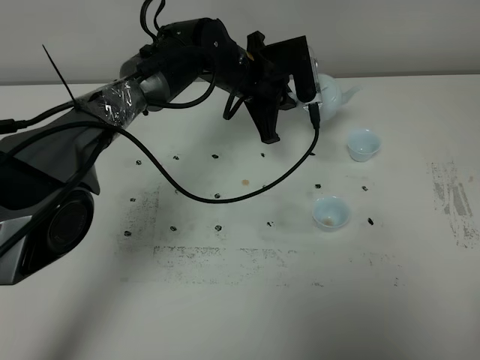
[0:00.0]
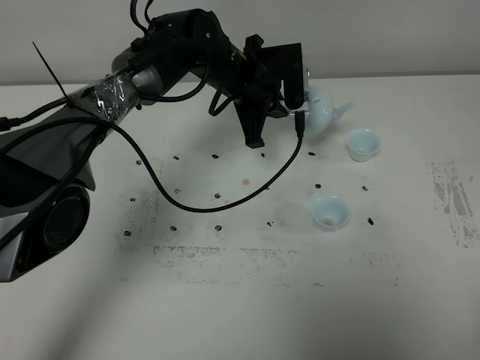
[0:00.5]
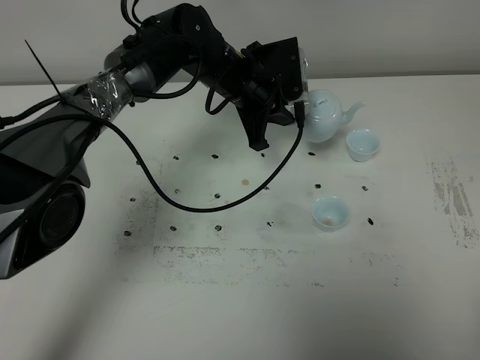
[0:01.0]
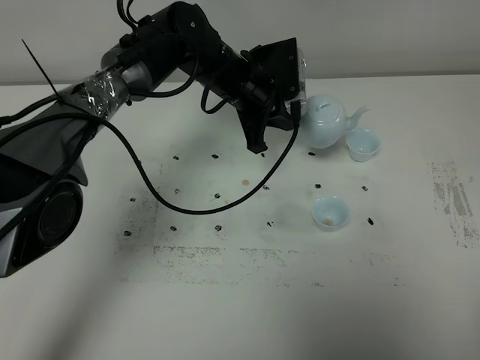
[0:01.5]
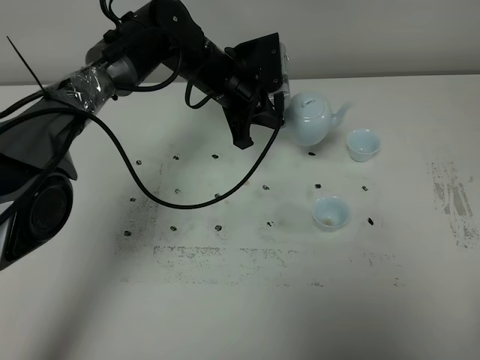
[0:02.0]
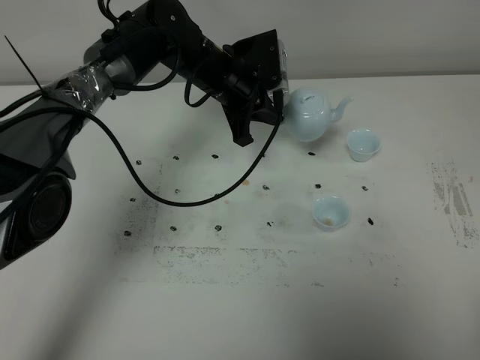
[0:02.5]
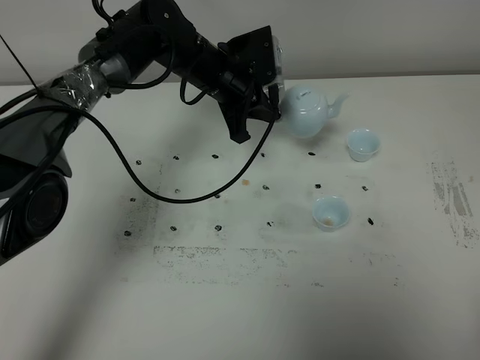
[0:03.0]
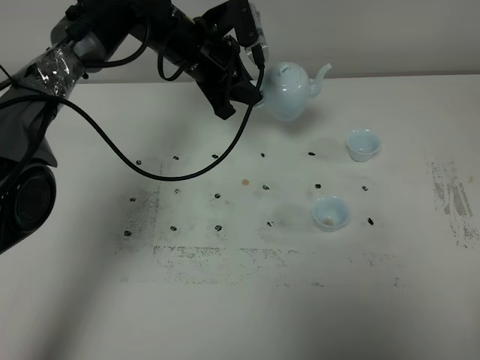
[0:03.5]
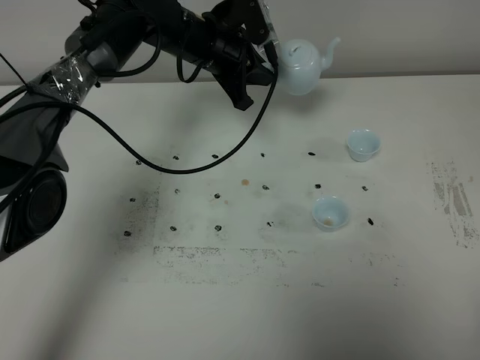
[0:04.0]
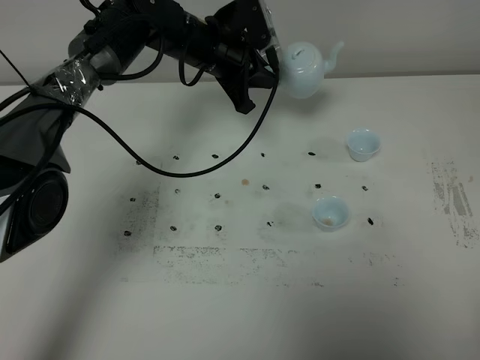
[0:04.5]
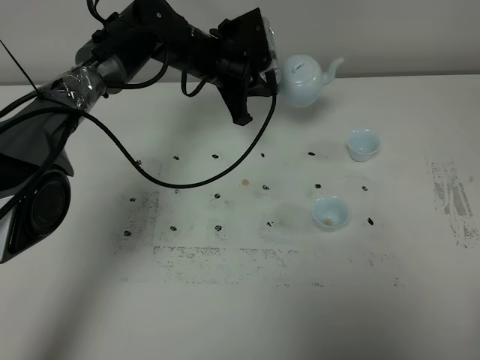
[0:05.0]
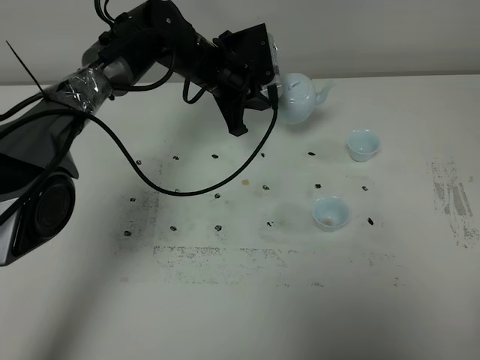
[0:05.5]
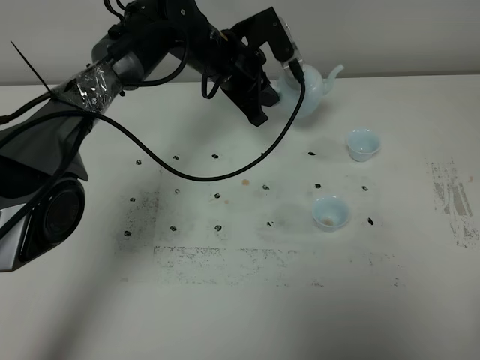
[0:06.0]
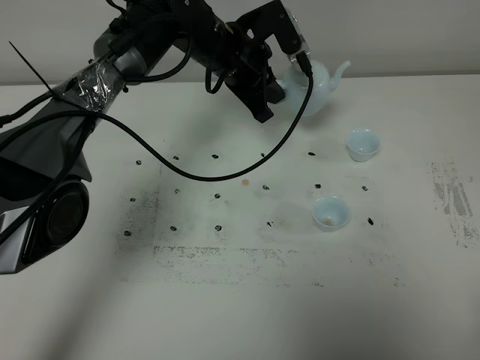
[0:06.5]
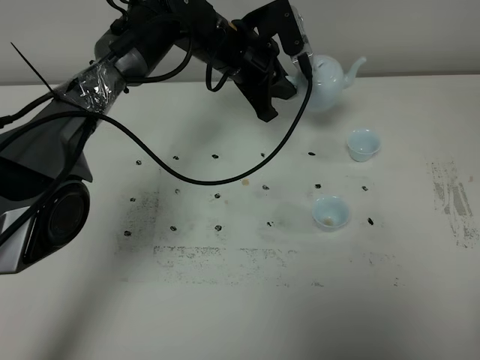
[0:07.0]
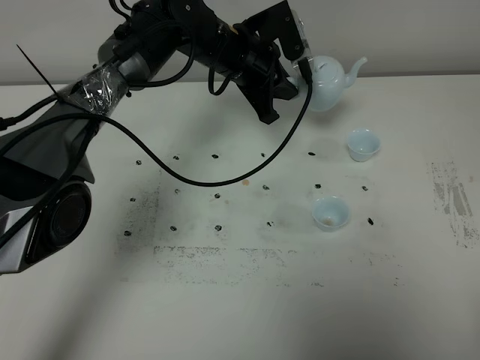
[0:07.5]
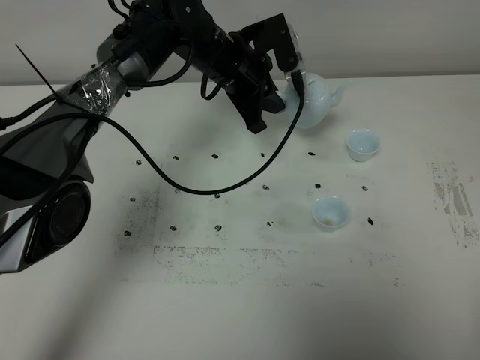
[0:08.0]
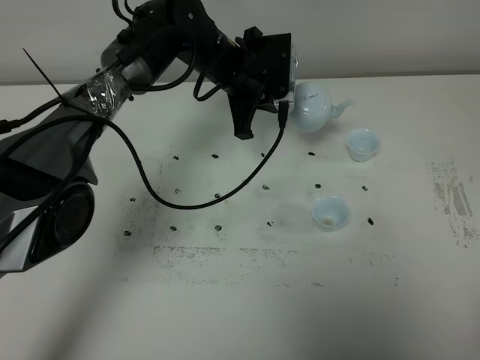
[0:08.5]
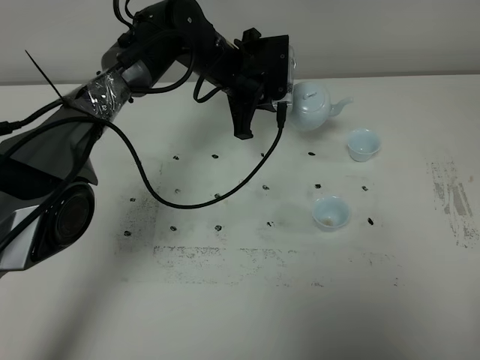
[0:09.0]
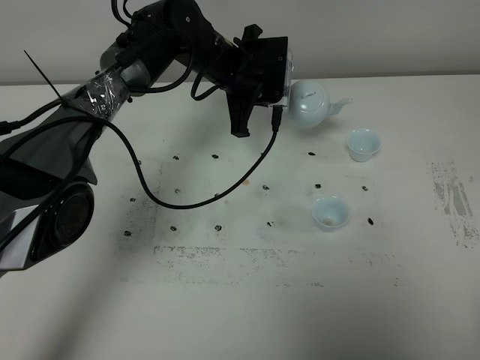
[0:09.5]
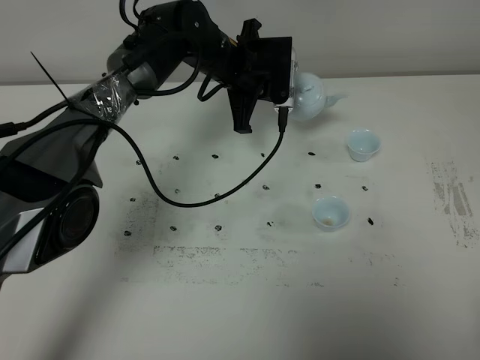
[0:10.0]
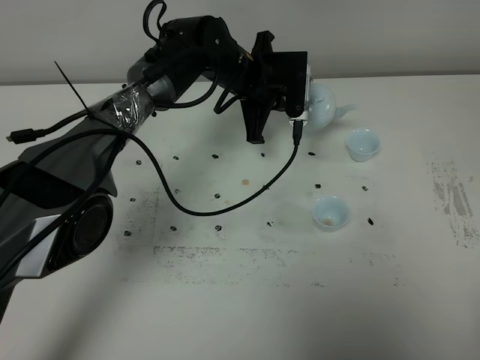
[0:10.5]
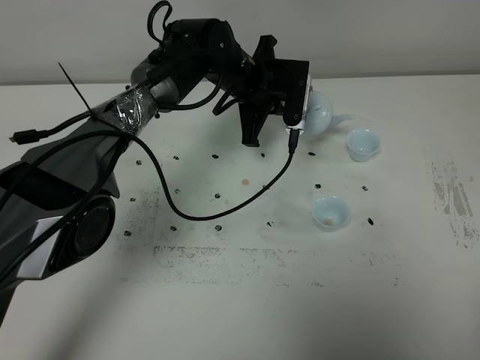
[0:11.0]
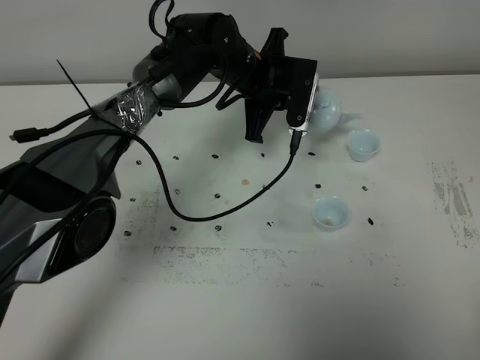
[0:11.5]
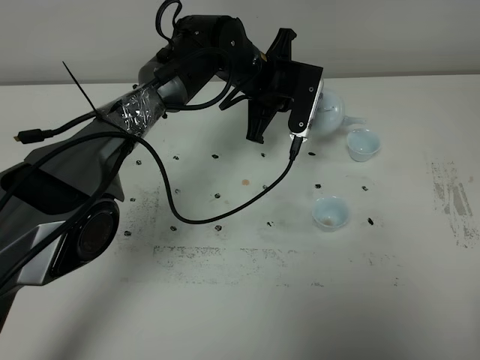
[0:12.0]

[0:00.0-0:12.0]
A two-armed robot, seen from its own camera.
Task of the whole recording: grasp the blue porcelain teapot and pour the tea into the two blue porcelain teacups one by one, put the blue porcelain teapot back in its original place.
0:00.0 to 0:02.0: There are only small adjustments of the grippers.
0:02.0 to 0:08.0: The grippers move only a little.
0:10.0 to 0:12.0: The grippers stay close to where they were, moving slightly.

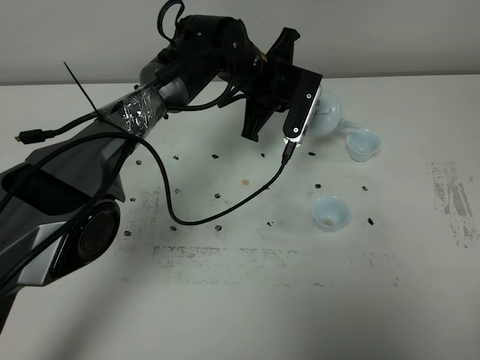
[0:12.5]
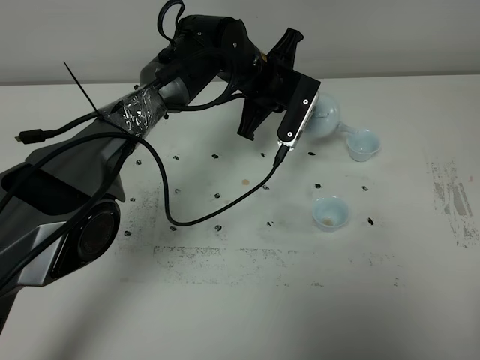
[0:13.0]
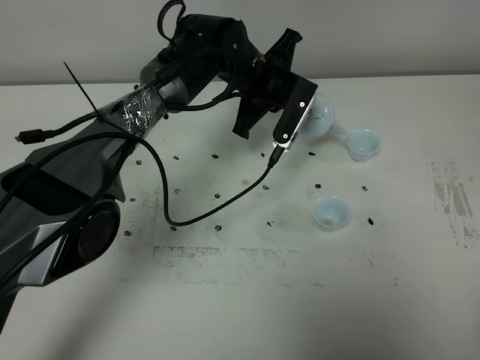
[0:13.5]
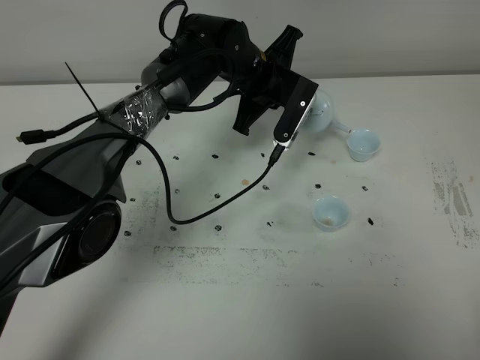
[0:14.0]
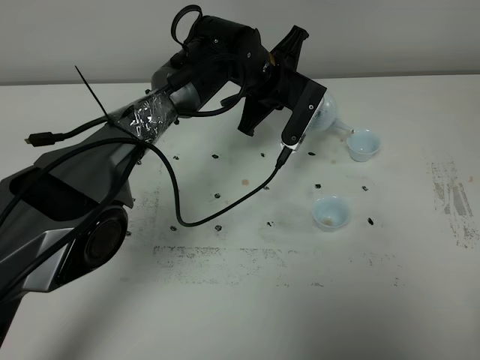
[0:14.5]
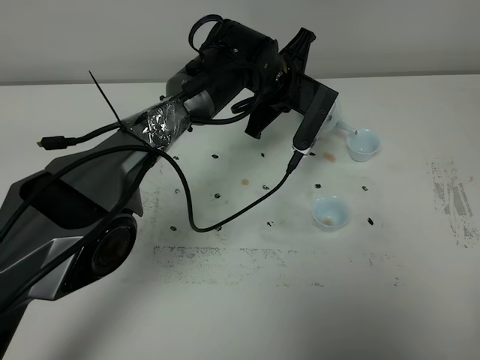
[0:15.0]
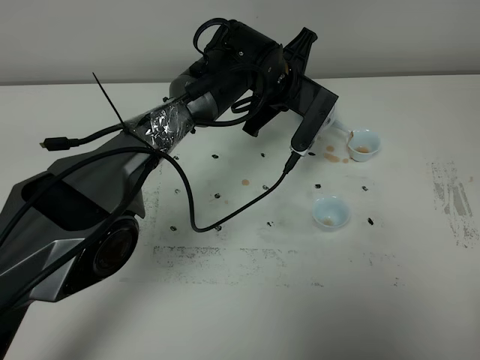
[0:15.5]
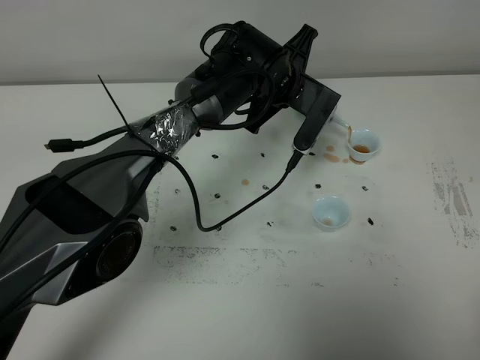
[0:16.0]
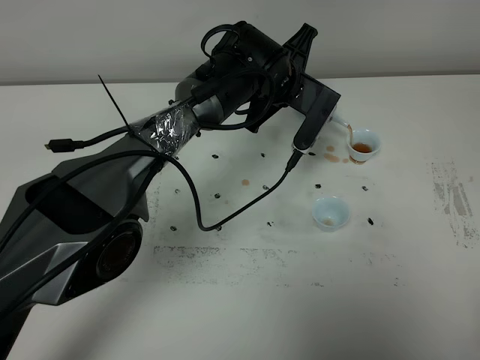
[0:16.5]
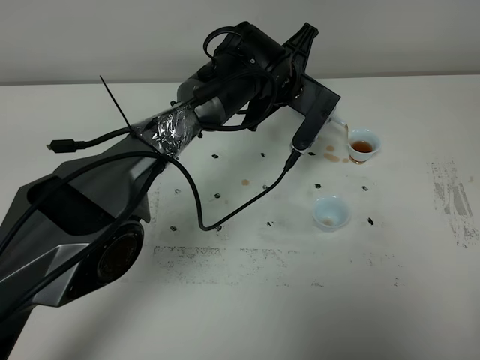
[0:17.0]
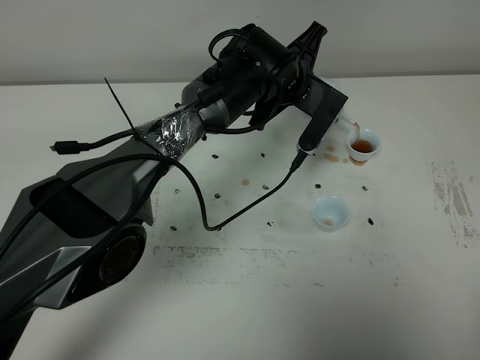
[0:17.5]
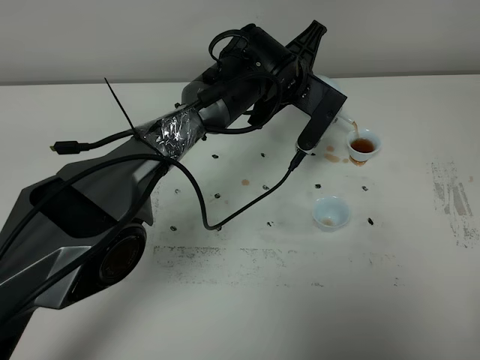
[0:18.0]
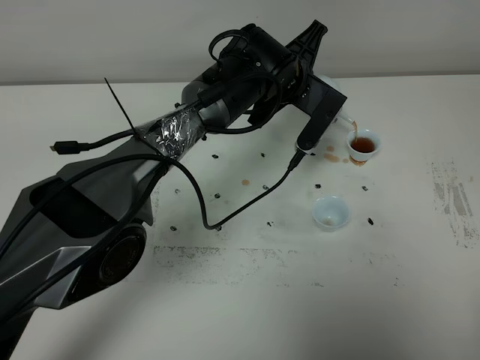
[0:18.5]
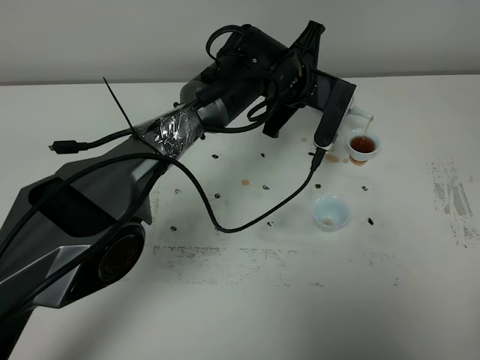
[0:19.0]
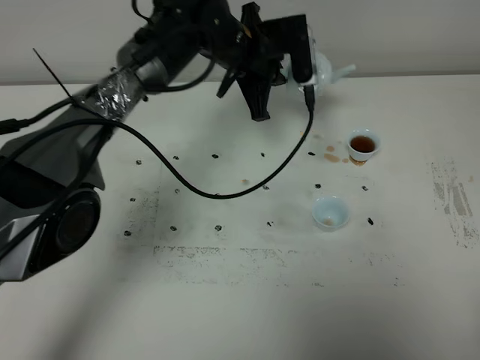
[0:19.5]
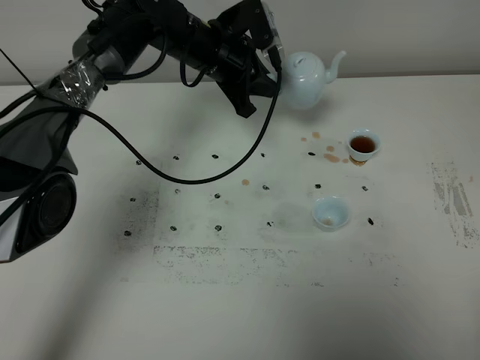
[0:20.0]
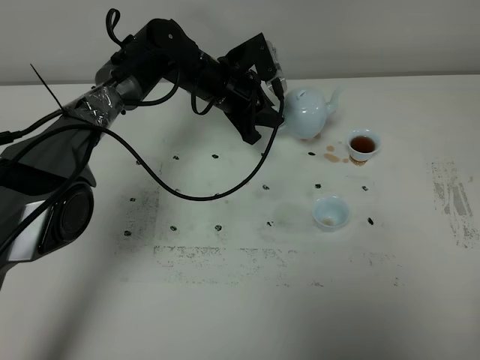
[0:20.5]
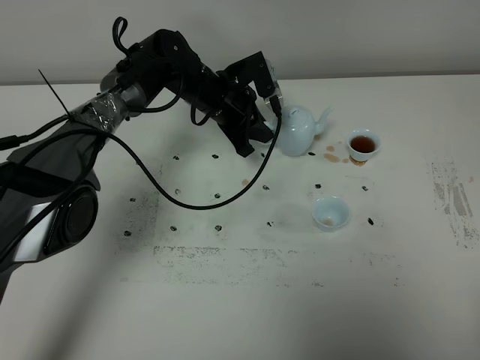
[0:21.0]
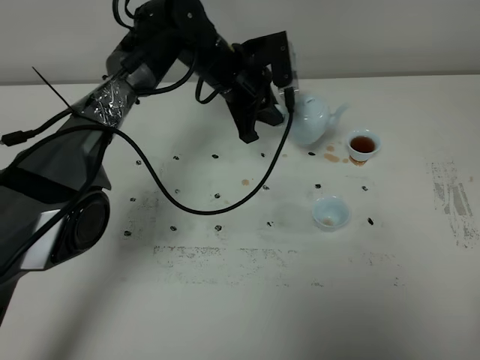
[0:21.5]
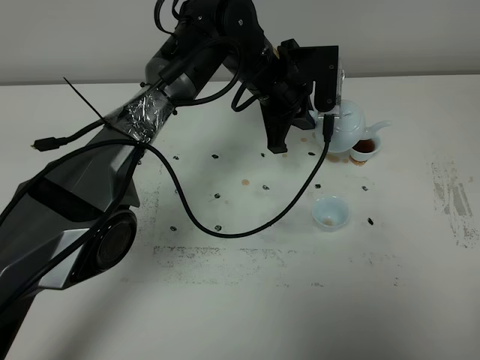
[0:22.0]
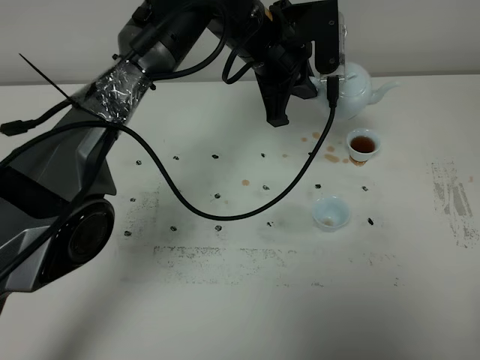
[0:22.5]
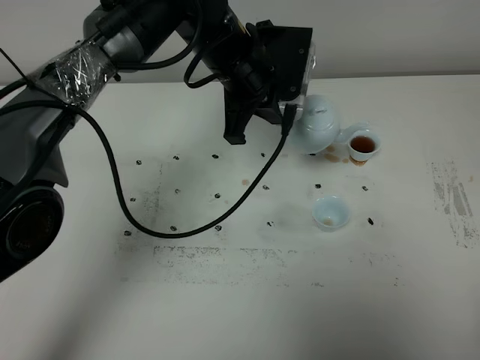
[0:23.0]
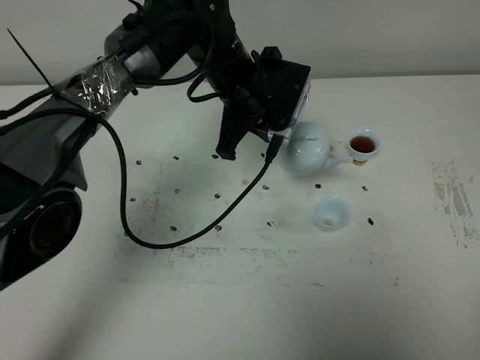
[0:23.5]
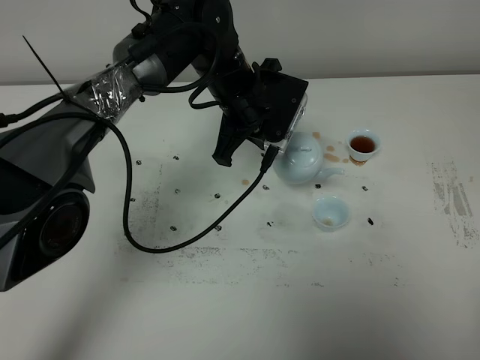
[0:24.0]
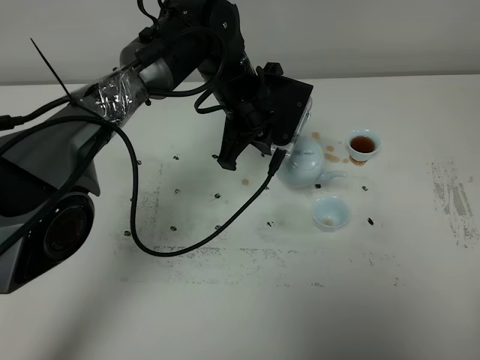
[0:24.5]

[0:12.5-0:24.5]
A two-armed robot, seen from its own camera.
Task of the whole recording: grasp the blue porcelain teapot and pour the tea into the two blue porcelain teacups one by one, put the blue porcelain teapot back in its original place.
0:12.5 to 0:14.5: There are only small adjustments of the grippers.
0:14.5 to 0:16.5: The grippers stay close to where they were, moving slightly.
0:16.5 to 0:18.5: Both grippers stay about where they are.
0:18.5 to 0:20.5: The left gripper is displaced to the left by about 10 cm.
0:20.5 to 0:22.5: The left gripper is displaced upward, backward and to the right by roughly 15 cm.
0:22.5 to 0:24.5: The left gripper heads downward, covering approximately 5 cm.

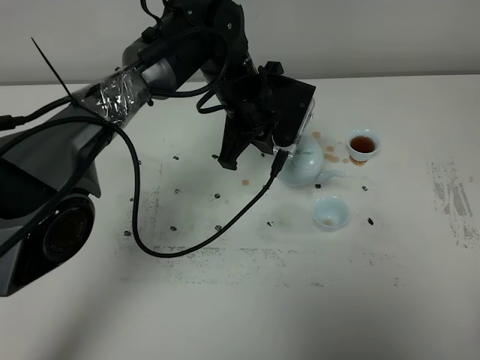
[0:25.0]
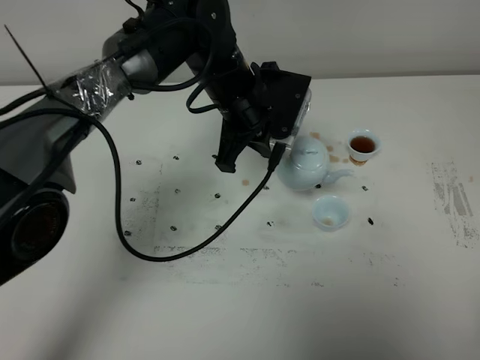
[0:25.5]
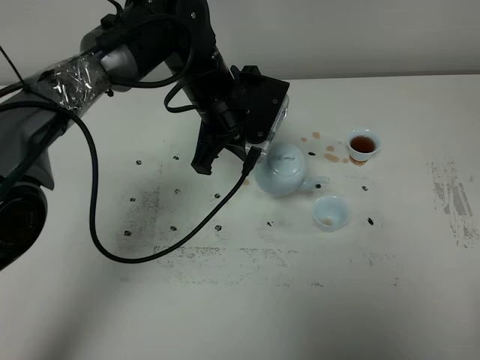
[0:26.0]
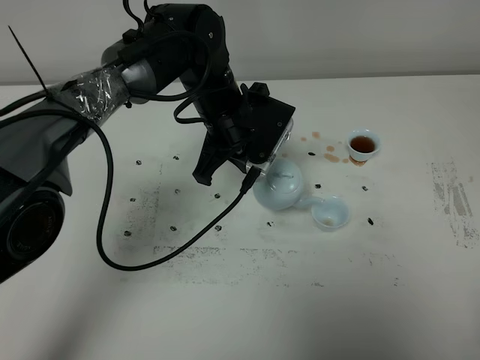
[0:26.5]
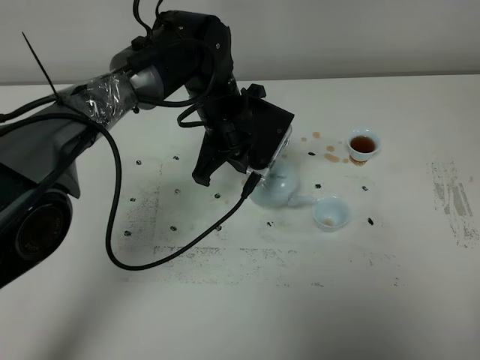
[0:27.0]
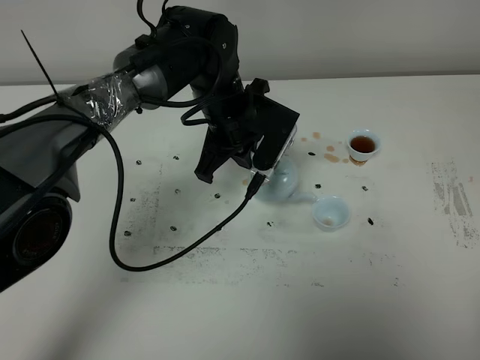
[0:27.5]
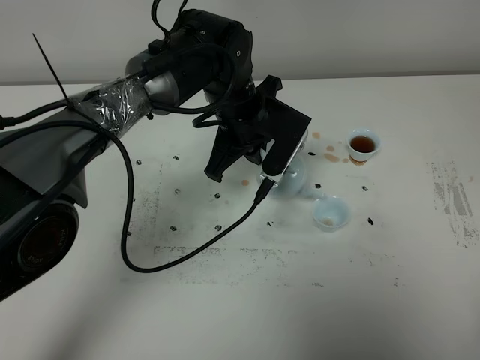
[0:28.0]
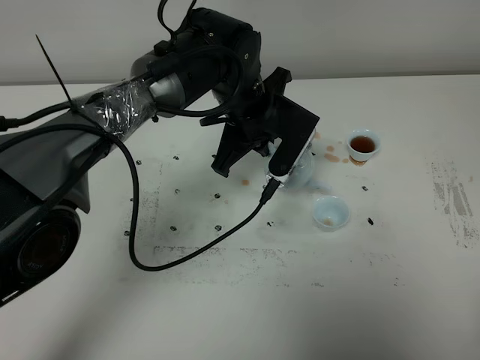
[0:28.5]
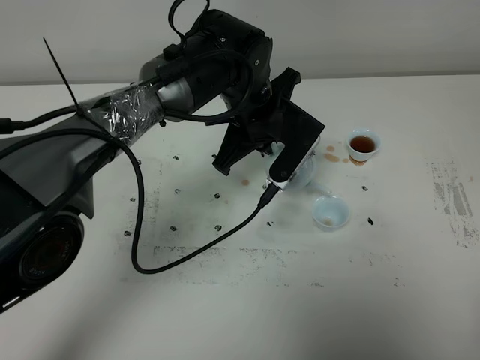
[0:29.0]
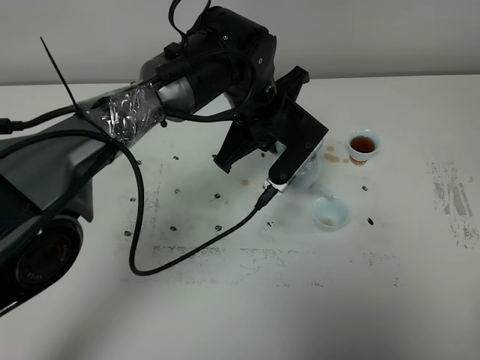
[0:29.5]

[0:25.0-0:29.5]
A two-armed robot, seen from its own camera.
Task of the whole recording: grasp the blue porcelain teapot and pour the tea into the two blue porcelain teacups one by one, put the blue porcelain teapot back in its original place.
0:25.0 to 0:27.0: The grippers make only small movements.
0:27.0 to 0:29.5: The left gripper shifts by roughly 5 cm.
